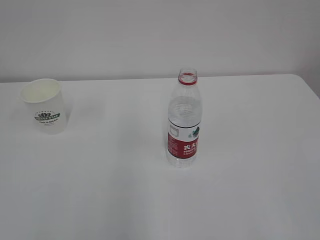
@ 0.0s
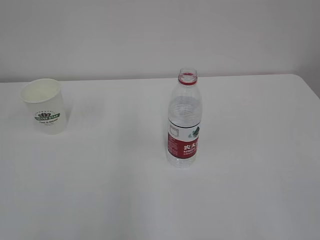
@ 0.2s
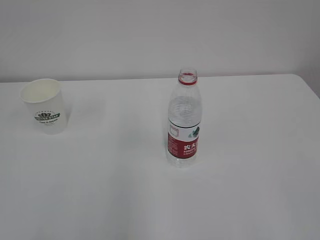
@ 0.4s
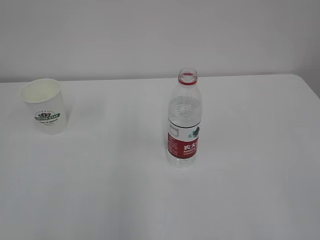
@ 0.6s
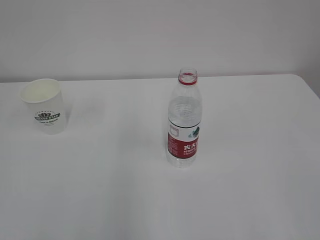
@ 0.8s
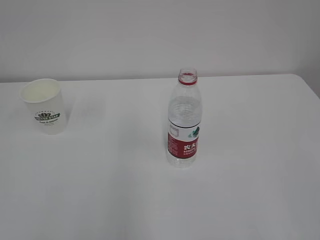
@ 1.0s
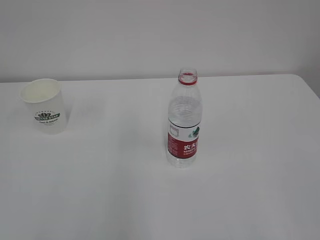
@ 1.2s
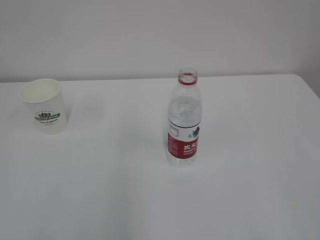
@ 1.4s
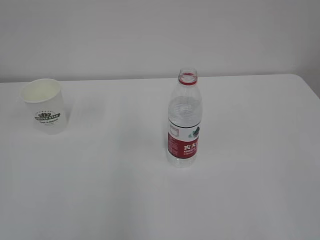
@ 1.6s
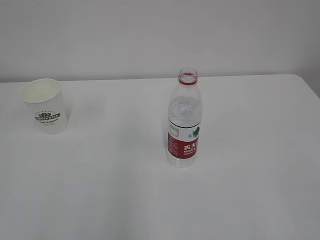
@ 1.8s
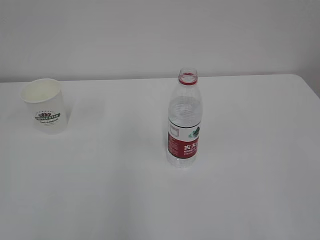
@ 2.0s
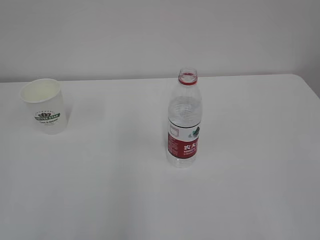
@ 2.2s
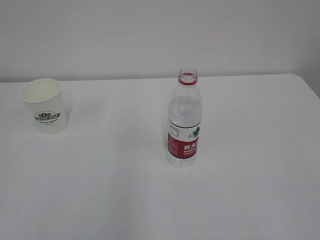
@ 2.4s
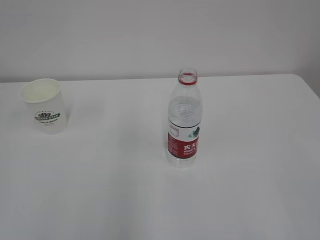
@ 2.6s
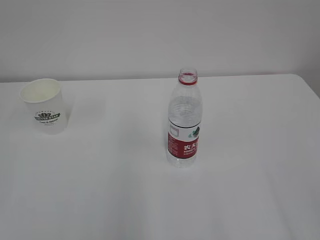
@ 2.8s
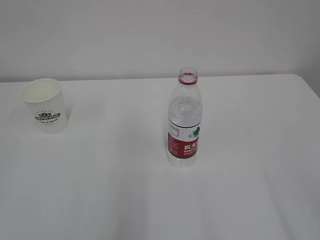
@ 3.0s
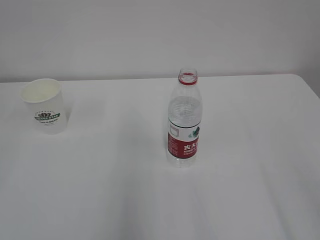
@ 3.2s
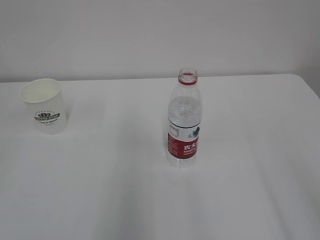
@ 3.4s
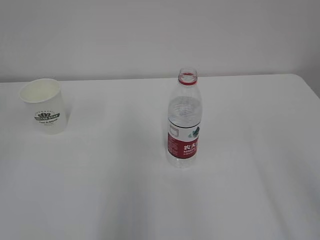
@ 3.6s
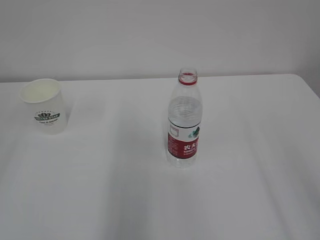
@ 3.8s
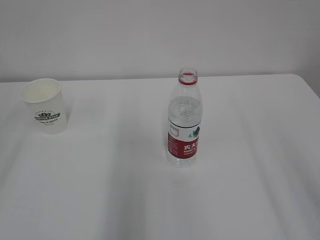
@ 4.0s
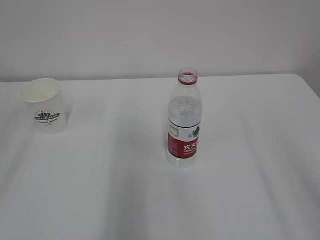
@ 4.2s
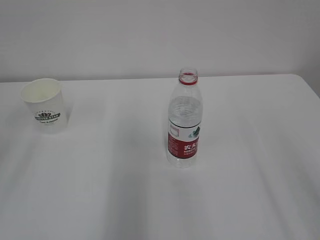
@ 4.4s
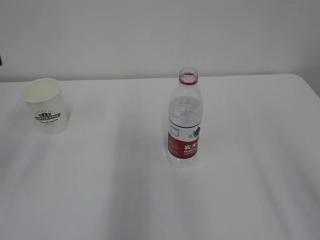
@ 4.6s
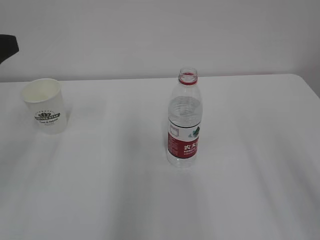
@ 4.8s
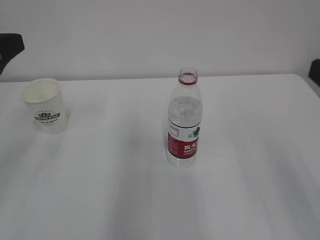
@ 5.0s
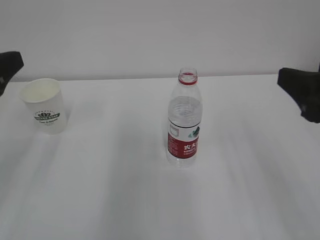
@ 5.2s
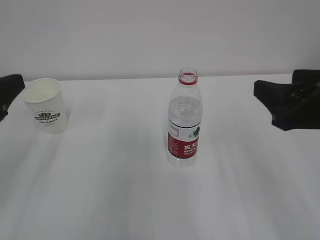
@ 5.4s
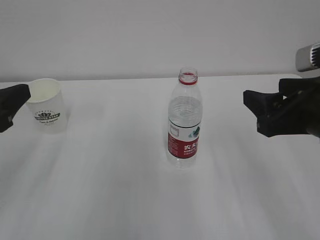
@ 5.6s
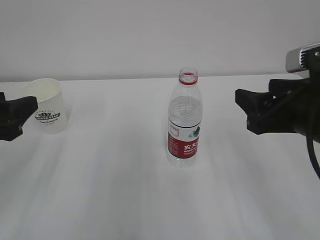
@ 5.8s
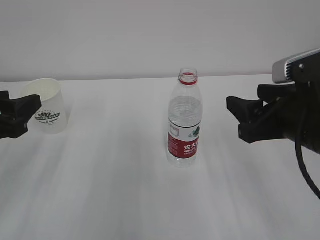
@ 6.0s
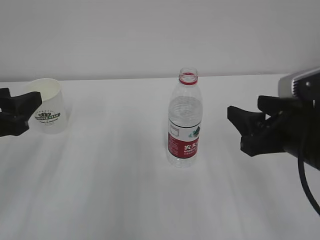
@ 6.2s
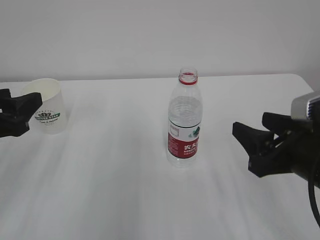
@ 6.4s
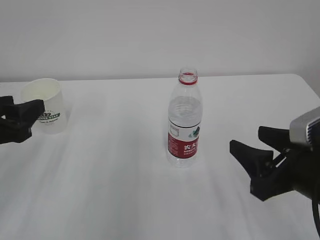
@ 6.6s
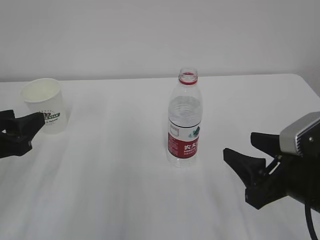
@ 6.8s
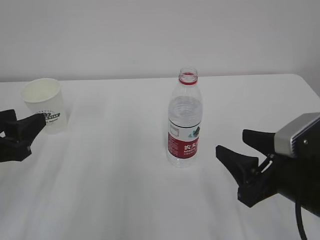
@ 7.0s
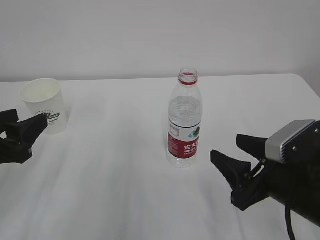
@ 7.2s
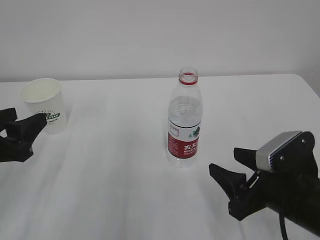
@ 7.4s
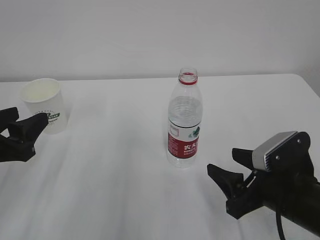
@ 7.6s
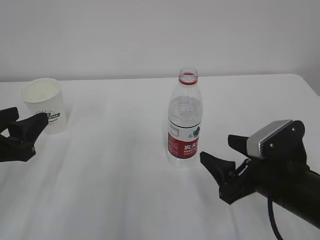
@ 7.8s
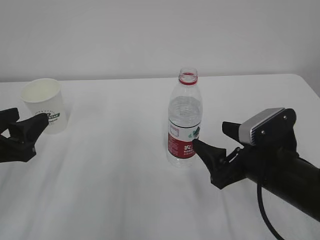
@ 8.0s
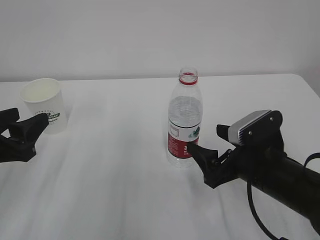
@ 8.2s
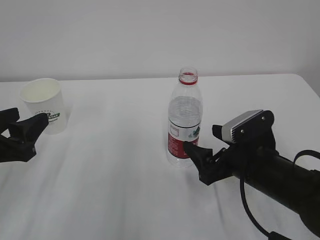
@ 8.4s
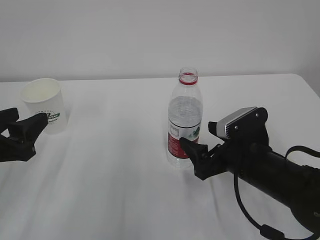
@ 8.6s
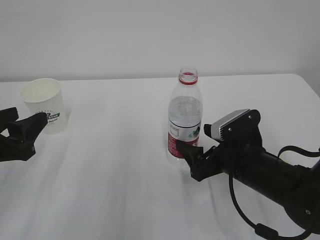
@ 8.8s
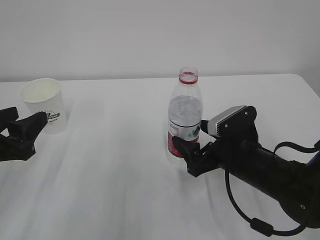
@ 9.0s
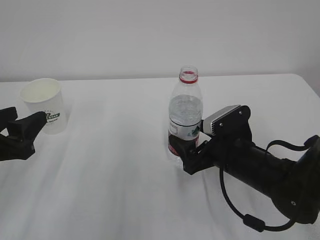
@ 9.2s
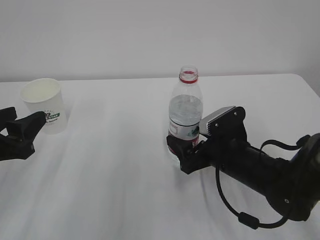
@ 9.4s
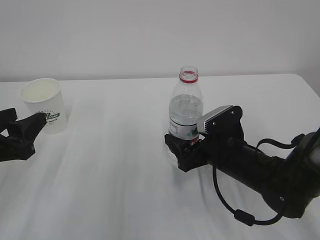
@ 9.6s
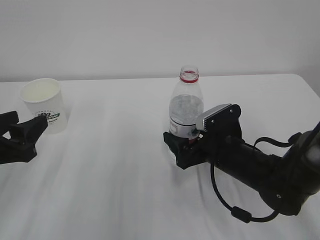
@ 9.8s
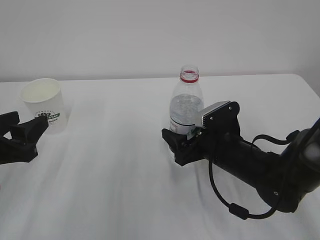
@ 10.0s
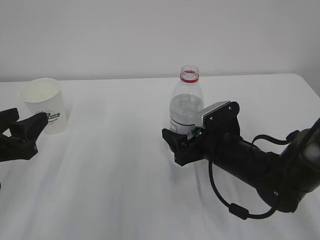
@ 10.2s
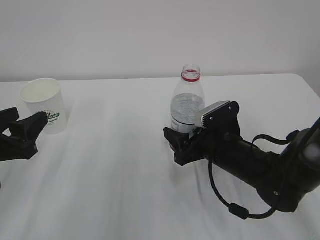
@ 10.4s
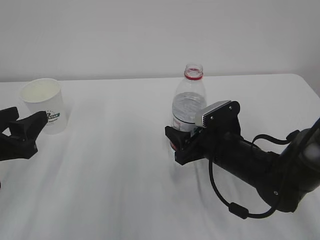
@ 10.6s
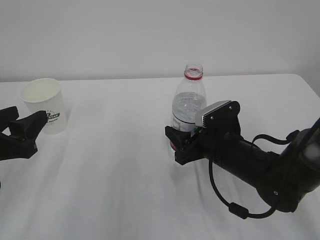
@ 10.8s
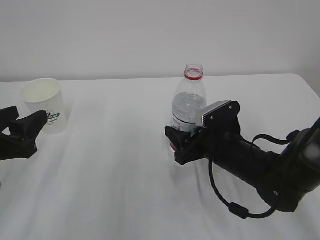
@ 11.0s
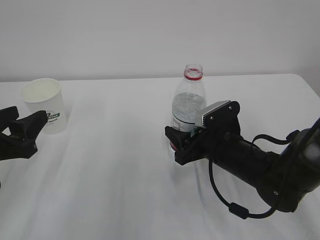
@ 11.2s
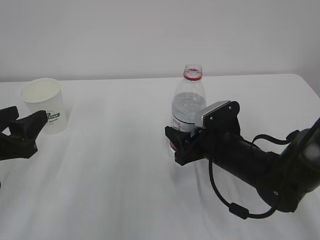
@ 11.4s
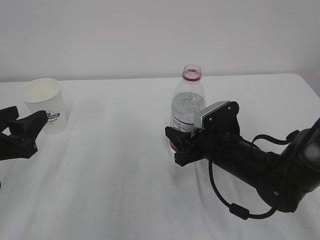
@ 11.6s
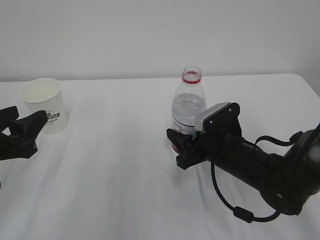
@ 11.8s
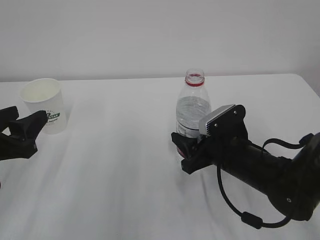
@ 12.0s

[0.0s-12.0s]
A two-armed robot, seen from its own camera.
4.4s to 6.0s: The right gripper shifts roughly 20 cm forward, downward and to the left. Meanwhile the left gripper shifts about 10 cm downward.
6.0s to 7.6s: The right gripper is displaced downward by roughly 10 cm.
7.6s to 9.0s: The right gripper goes some 10 cm forward, and opens.
9.0s to 10.4s: The right gripper closes its fingers.
10.4s to 12.0s: The right gripper closes its fingers.

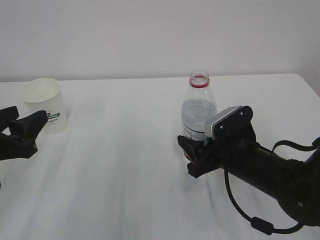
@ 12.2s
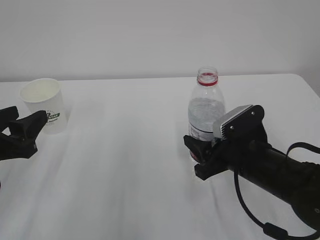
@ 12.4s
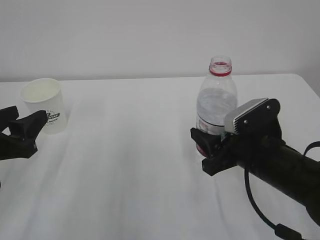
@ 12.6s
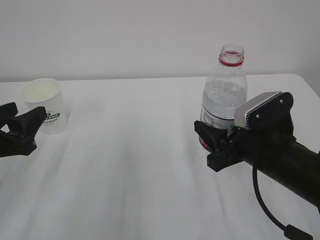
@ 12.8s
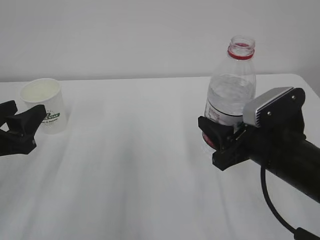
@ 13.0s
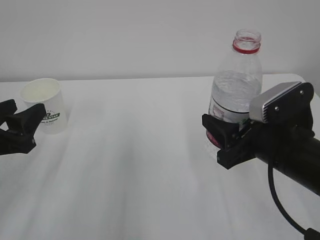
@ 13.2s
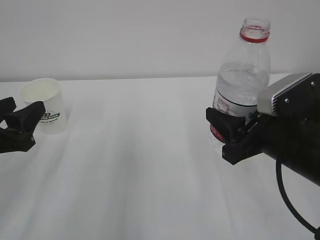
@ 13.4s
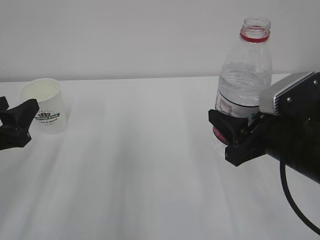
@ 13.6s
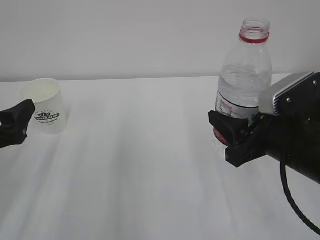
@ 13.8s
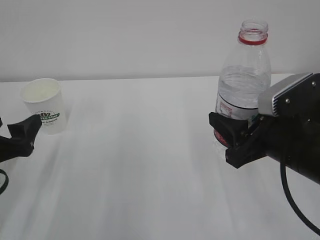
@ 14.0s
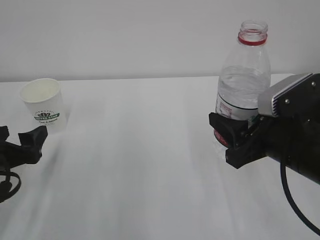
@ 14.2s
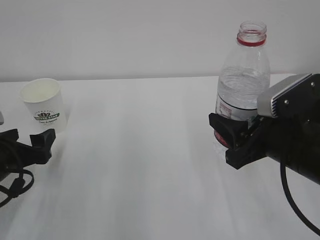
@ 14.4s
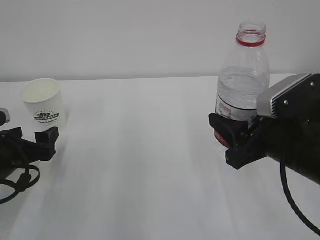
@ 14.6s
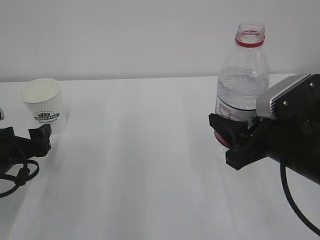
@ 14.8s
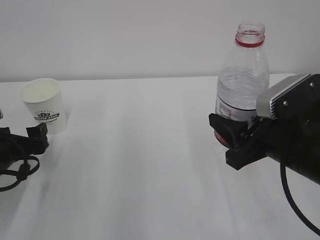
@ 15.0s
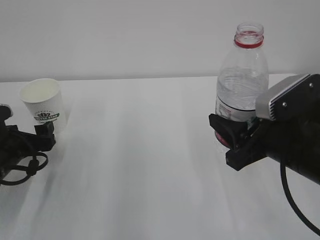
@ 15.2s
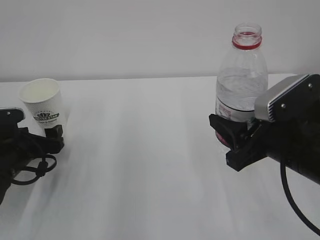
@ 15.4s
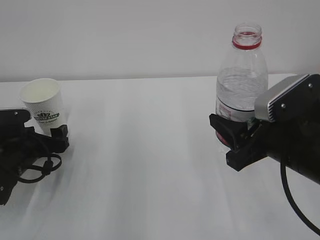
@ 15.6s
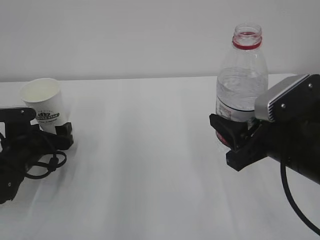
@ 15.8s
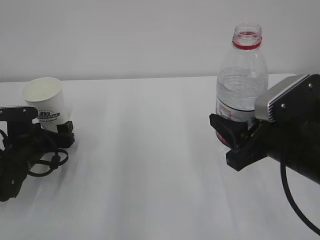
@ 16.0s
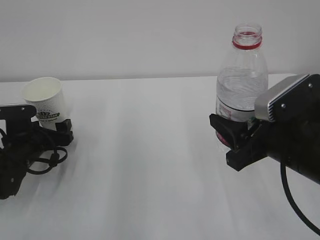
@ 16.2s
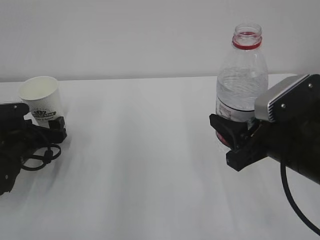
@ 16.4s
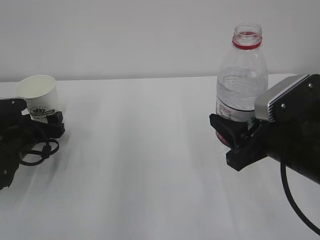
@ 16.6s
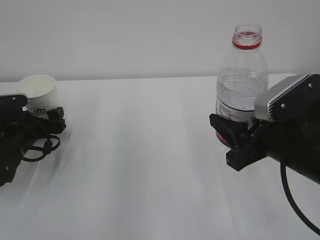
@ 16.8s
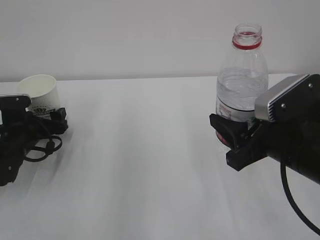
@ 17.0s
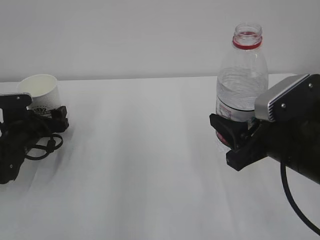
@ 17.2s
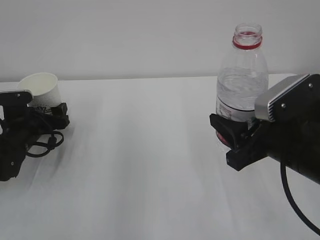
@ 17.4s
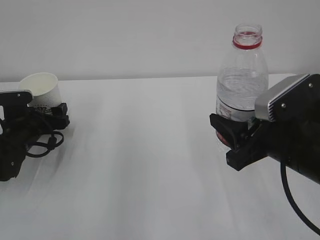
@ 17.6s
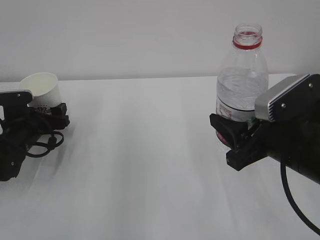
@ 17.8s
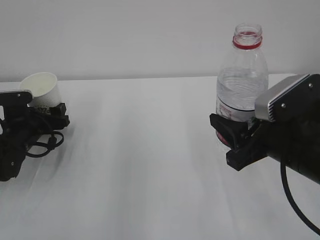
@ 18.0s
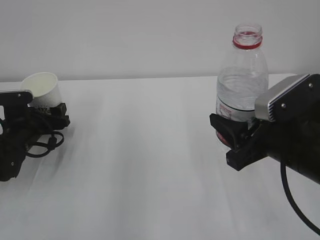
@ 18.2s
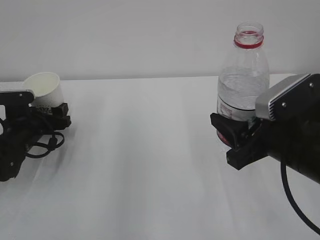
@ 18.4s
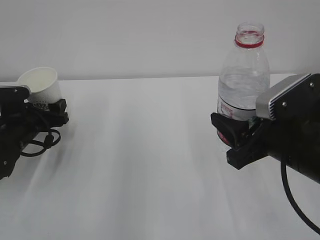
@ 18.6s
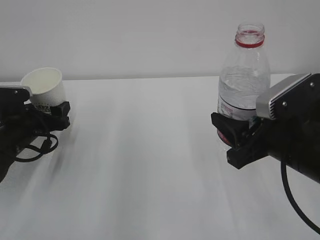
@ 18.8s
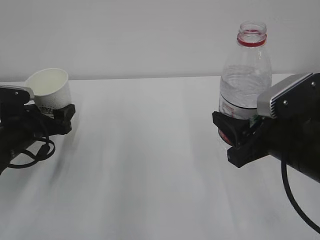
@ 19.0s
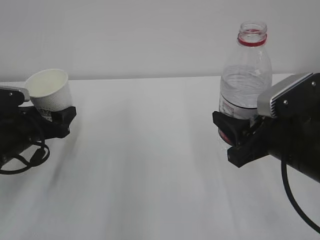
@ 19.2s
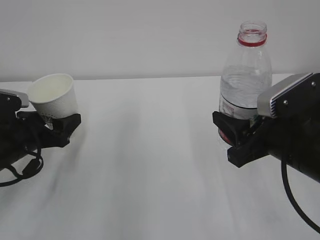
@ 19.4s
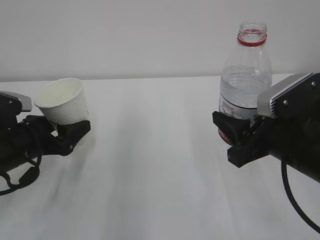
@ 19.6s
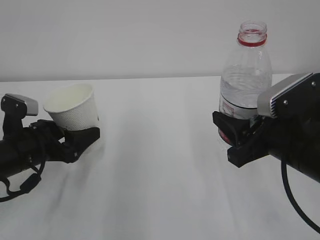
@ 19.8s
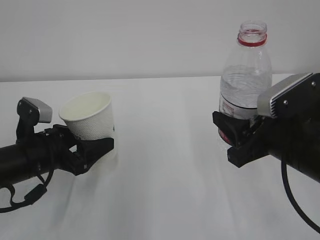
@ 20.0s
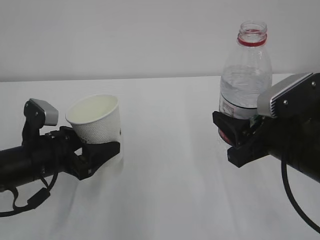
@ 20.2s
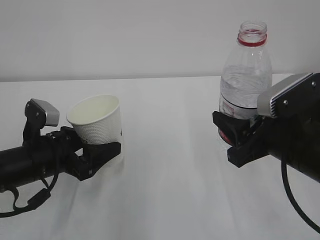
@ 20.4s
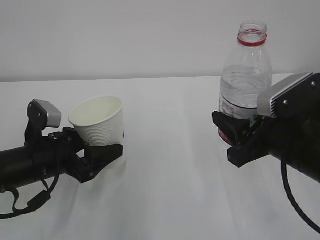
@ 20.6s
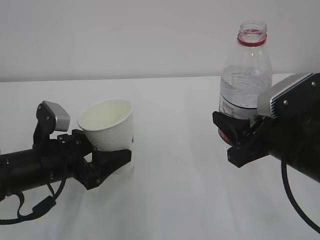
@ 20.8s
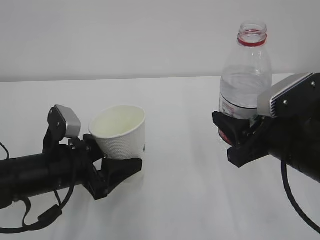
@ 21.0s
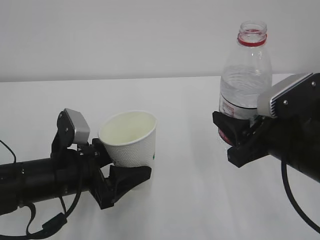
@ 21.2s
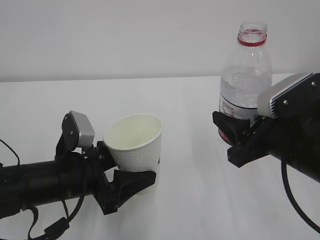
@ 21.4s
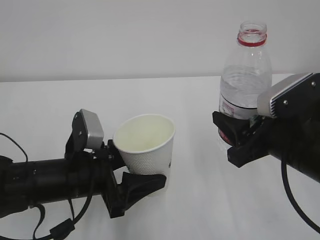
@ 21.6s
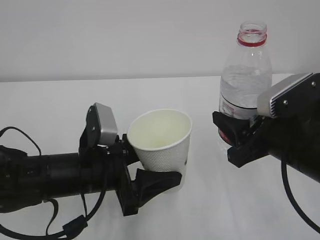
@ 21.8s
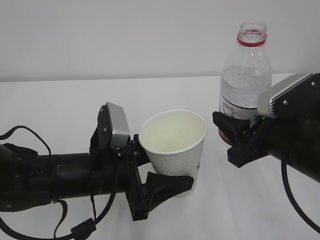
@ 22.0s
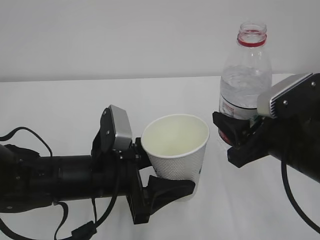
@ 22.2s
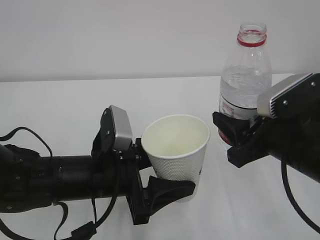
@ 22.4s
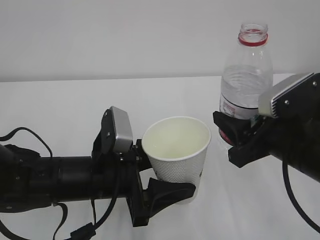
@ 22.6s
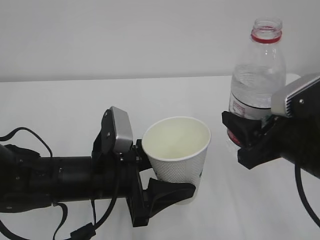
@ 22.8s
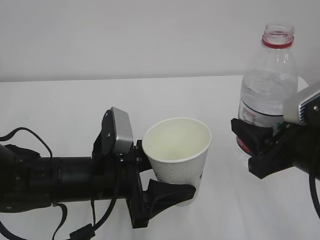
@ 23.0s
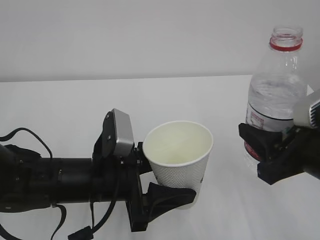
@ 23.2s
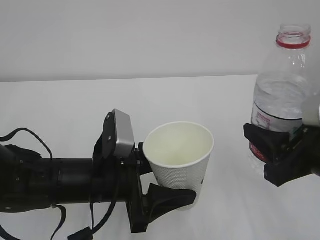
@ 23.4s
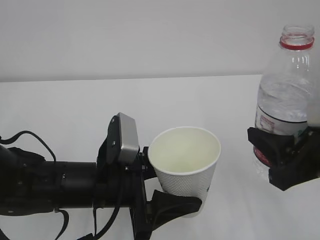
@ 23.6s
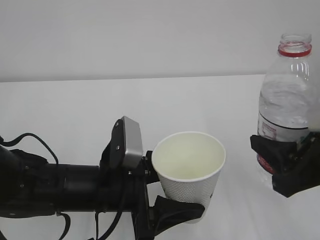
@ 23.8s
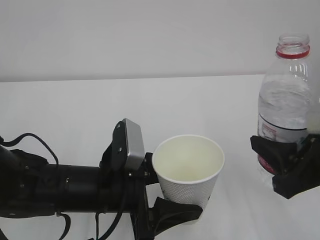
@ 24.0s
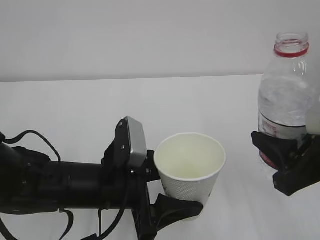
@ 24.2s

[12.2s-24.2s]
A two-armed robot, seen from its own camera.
12.2s to 13.8s: The right gripper is displaced upward and backward by about 10 cm, while the left gripper opens its fingers.
13.8s to 15.2s: The left gripper moves downward and forward, some 10 cm.
15.2s to 16.6s: The left gripper is displaced forward by approximately 5 cm.
16.6s to 18.2s: The left gripper closes its fingers.
18.2s to 19.8s: The left gripper is displaced backward and upward by roughly 10 cm.
19.8s to 21.2s: The left gripper heads to the right, covering some 10 cm.
21.2s to 22.6s: The left gripper travels to the right by roughly 5 cm.
22.6s to 24.2s: The right gripper heads backward, covering some 5 cm.
